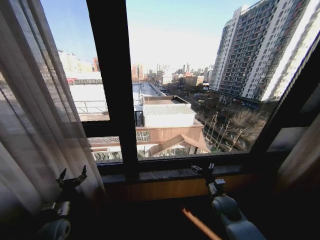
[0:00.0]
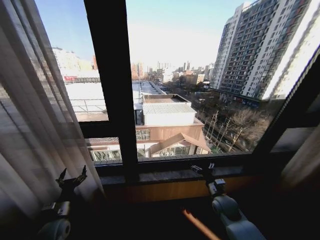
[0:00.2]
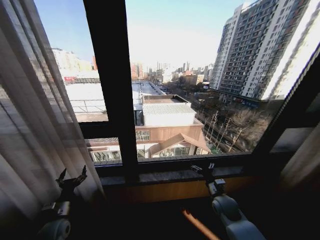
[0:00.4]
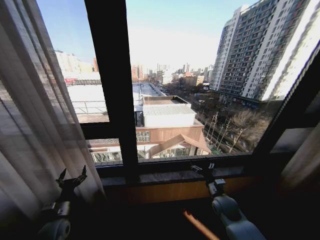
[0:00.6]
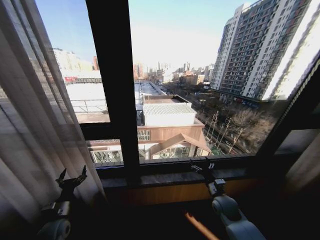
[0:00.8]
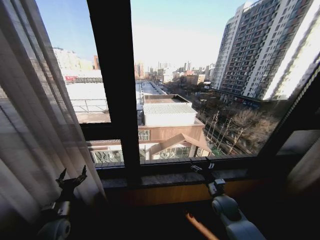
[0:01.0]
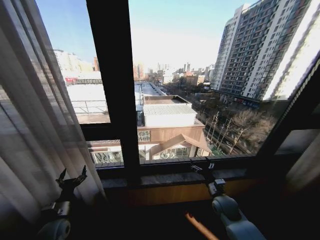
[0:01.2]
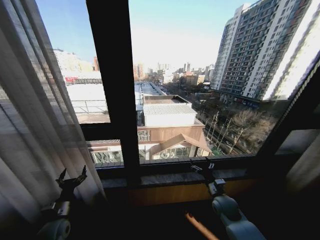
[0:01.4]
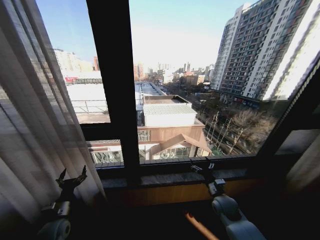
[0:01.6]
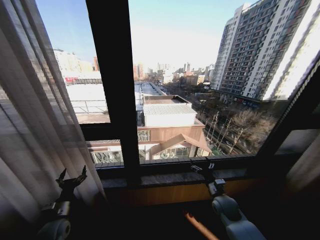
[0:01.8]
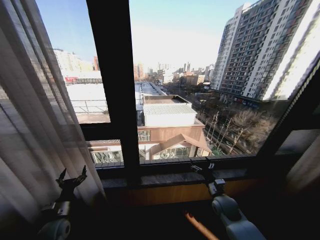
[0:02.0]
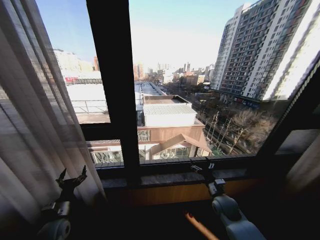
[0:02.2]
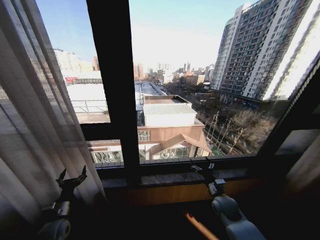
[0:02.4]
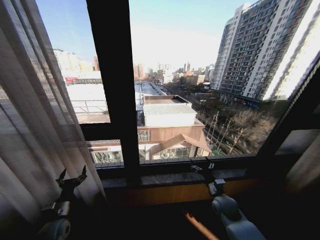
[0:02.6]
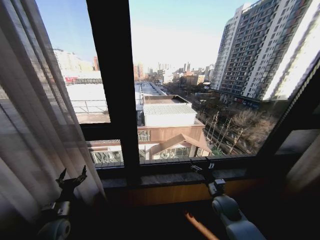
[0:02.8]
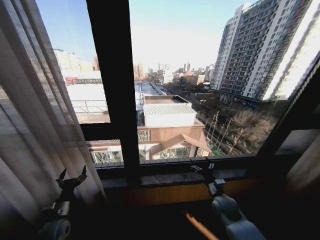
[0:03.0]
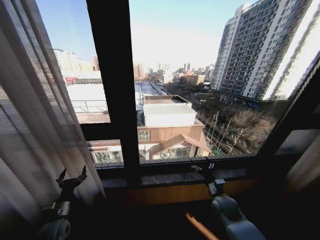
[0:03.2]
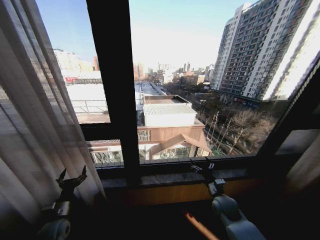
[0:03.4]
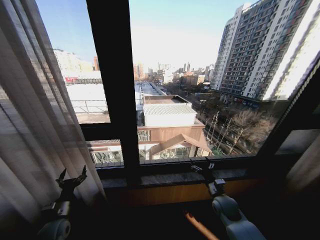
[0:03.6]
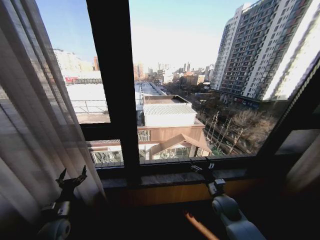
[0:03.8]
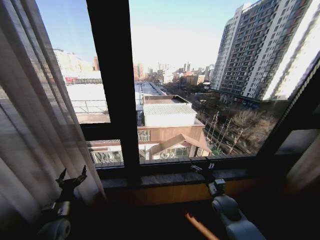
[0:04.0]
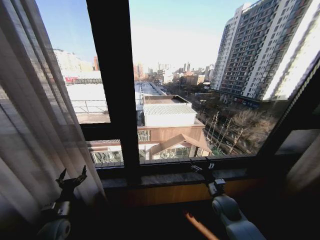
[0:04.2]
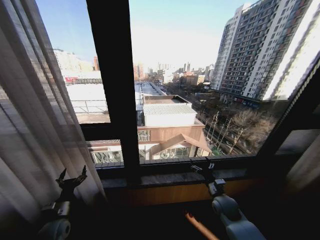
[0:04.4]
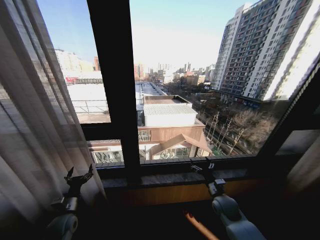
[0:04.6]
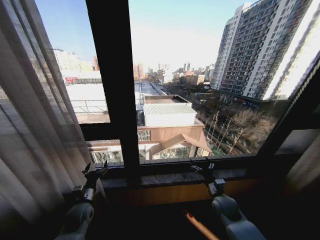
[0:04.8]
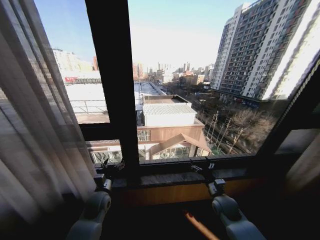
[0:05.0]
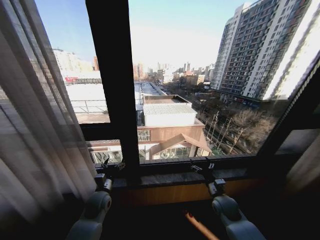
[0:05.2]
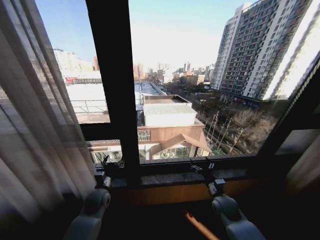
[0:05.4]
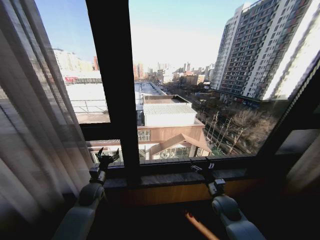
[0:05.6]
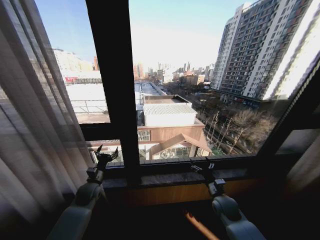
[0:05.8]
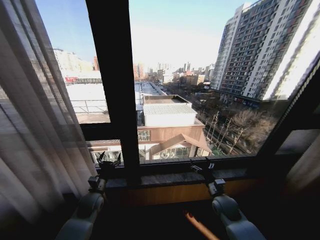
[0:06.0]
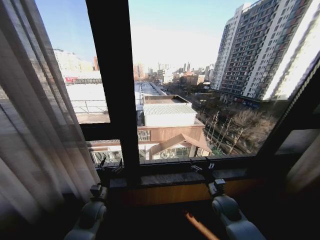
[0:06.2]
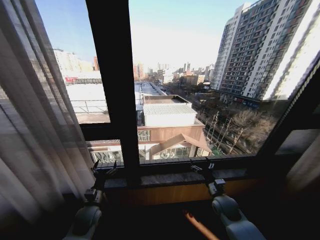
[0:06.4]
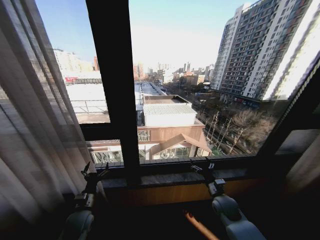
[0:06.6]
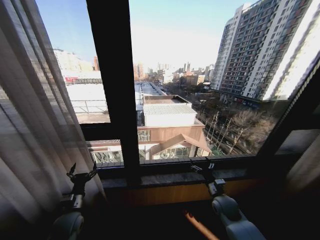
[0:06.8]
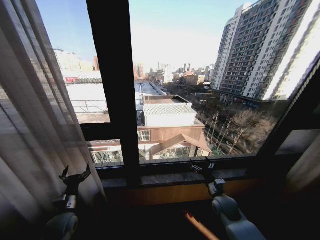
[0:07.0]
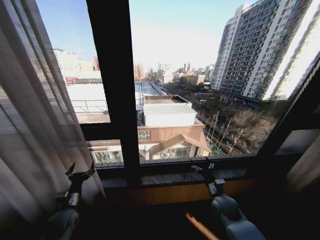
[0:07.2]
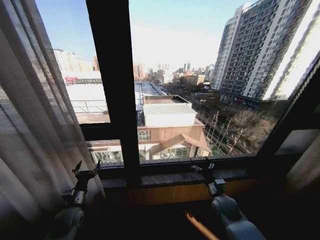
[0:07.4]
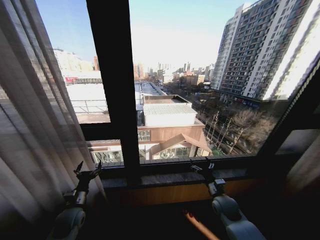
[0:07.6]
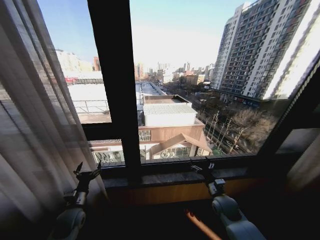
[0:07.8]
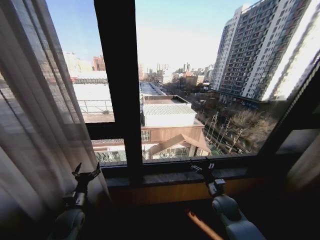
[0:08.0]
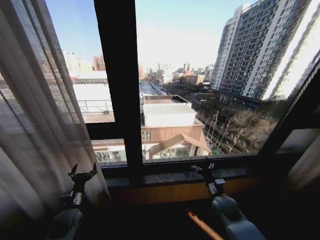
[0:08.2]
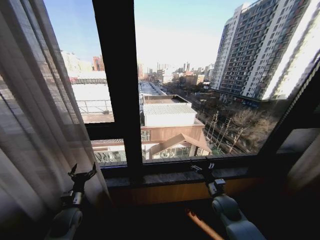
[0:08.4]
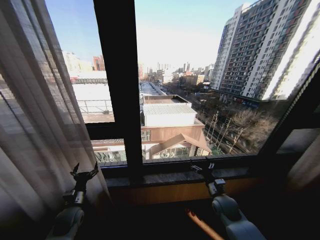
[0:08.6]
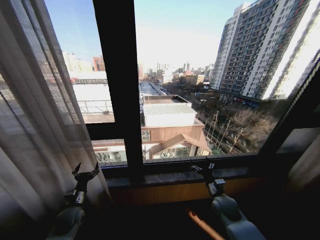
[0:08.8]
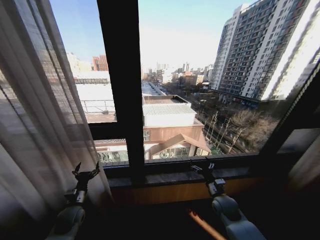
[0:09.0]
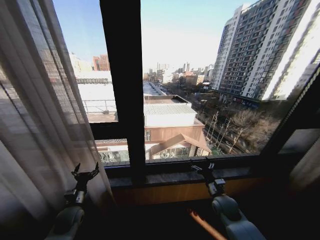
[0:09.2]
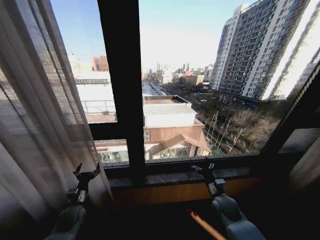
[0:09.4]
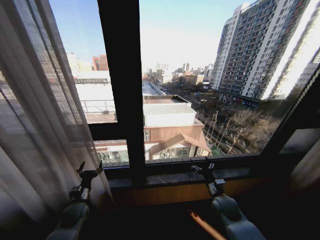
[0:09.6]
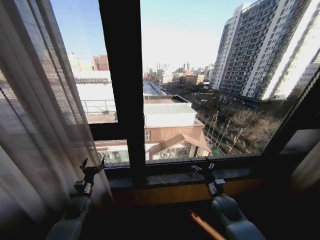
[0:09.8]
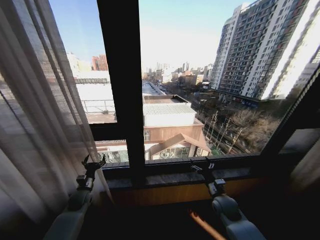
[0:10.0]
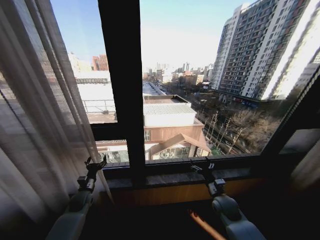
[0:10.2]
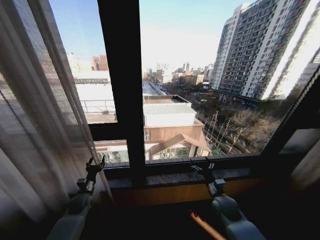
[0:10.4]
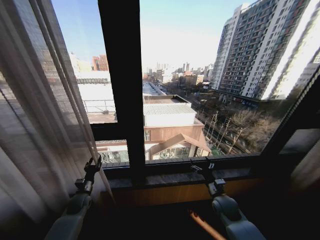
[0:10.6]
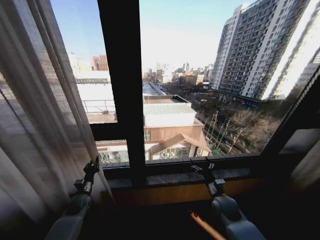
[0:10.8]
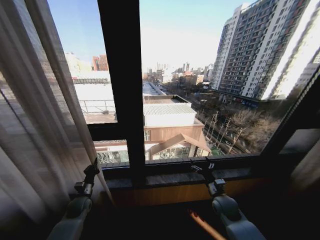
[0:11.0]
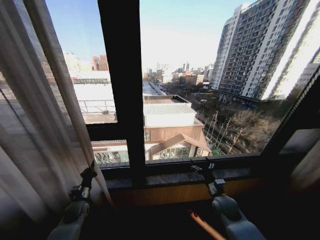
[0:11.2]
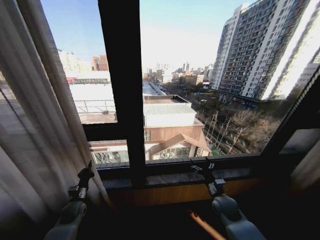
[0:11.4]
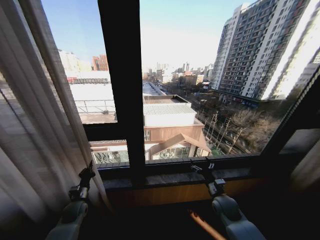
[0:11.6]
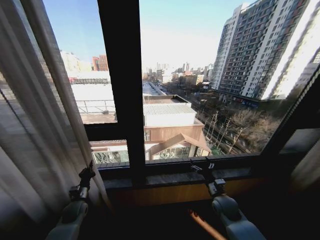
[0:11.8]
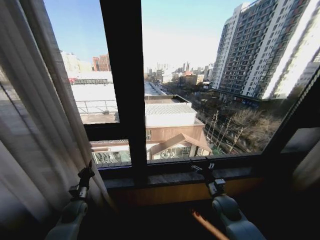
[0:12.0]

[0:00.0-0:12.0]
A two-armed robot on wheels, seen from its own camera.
Task of the whole recording: Open the curtains by pulling them apart, changing their state from closed to fully open.
0:01.6 to 0:04.4: The two grippers keep their place.
0:04.4 to 0:06.0: The left gripper is displaced to the right and forward by about 15 cm.
0:06.0 to 0:07.6: The left gripper is displaced backward and to the left by roughly 10 cm.
0:07.6 to 0:09.0: The grippers stay close to where they were, moving slightly.
0:09.0 to 0:10.4: The left gripper travels forward by about 5 cm.
0:10.4 to 0:12.0: The left gripper closes its fingers.

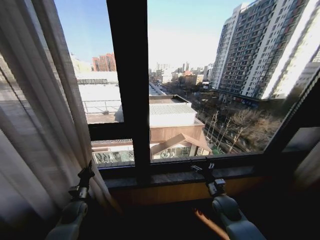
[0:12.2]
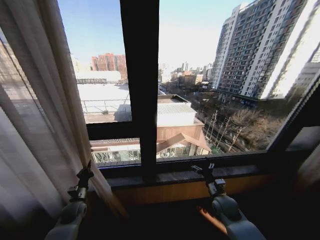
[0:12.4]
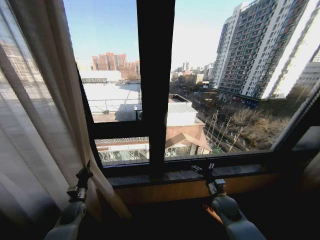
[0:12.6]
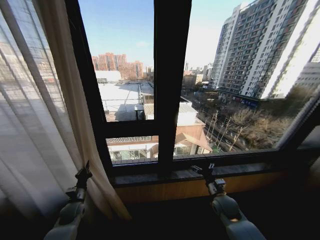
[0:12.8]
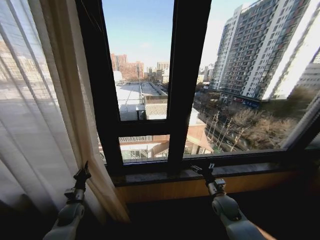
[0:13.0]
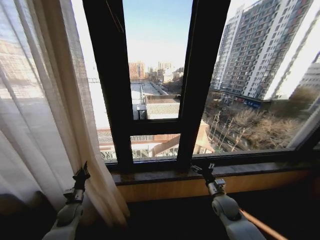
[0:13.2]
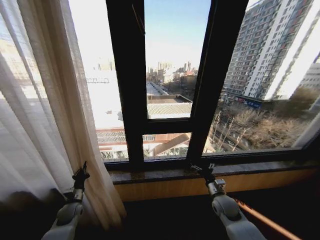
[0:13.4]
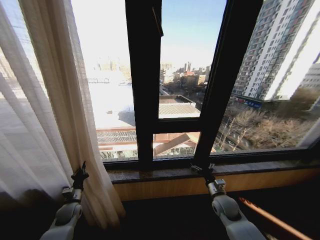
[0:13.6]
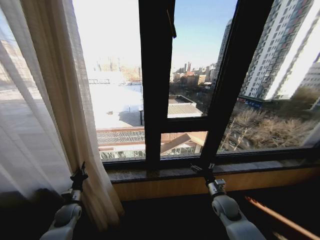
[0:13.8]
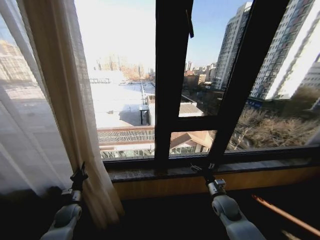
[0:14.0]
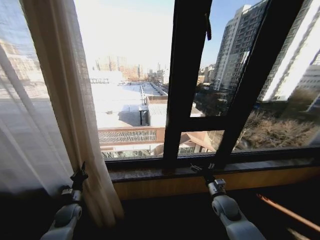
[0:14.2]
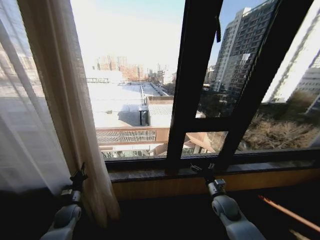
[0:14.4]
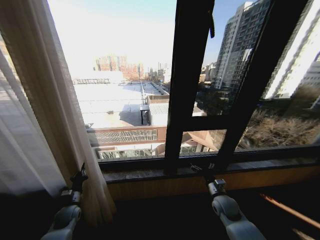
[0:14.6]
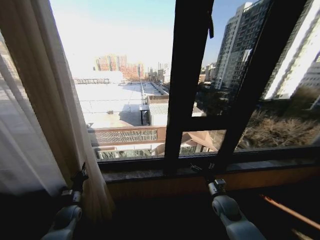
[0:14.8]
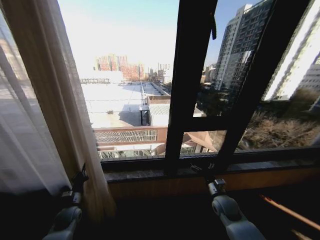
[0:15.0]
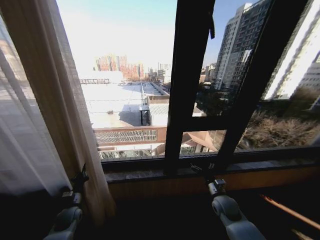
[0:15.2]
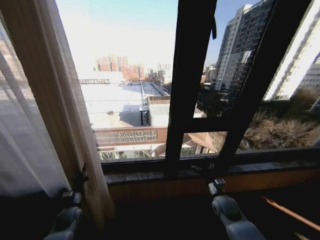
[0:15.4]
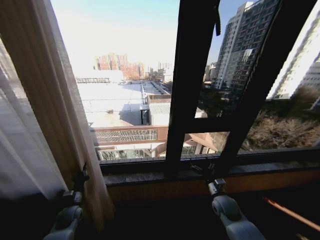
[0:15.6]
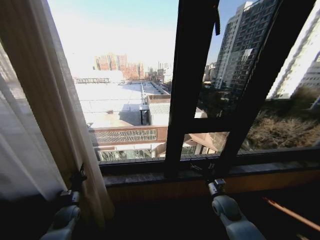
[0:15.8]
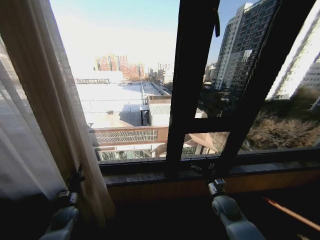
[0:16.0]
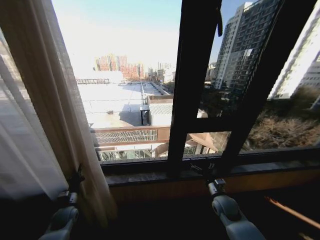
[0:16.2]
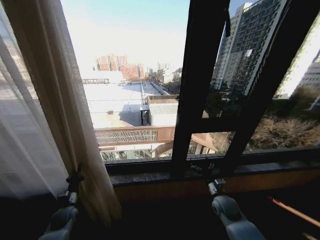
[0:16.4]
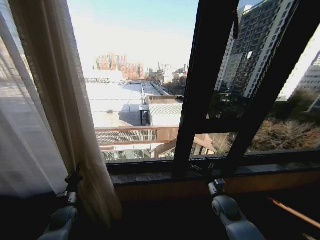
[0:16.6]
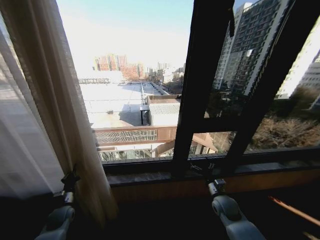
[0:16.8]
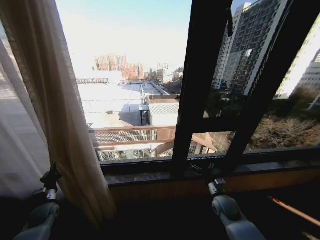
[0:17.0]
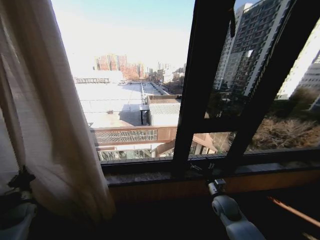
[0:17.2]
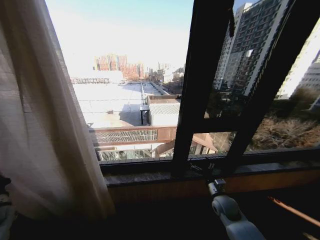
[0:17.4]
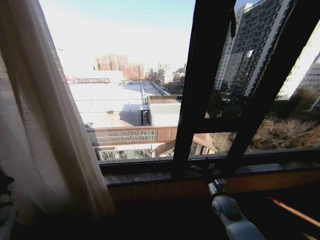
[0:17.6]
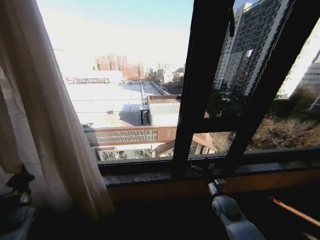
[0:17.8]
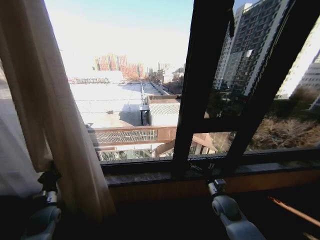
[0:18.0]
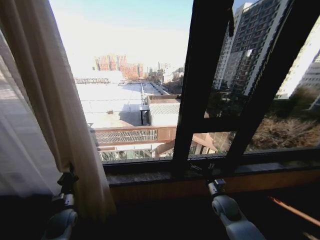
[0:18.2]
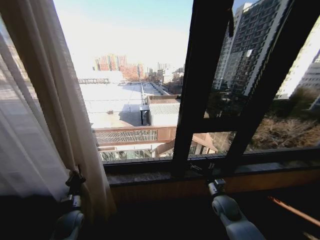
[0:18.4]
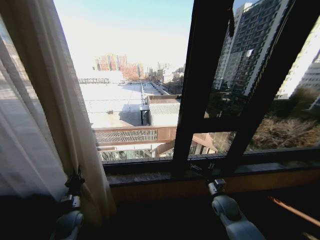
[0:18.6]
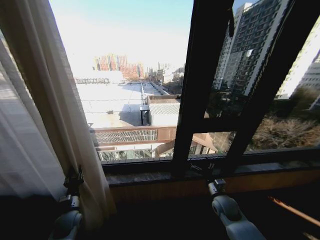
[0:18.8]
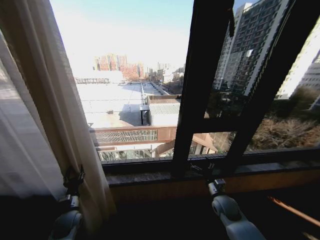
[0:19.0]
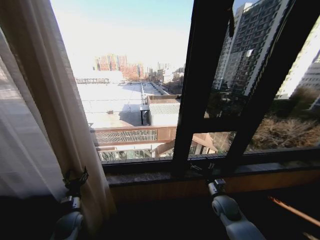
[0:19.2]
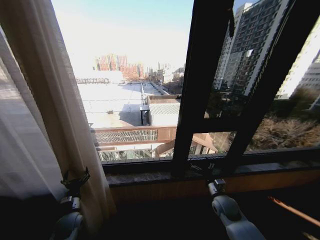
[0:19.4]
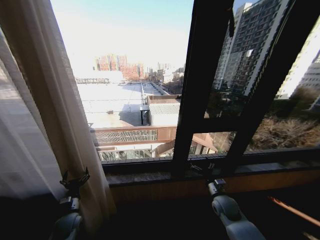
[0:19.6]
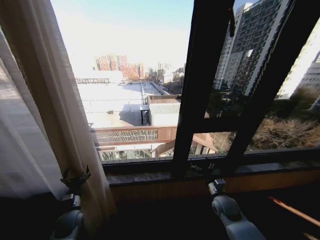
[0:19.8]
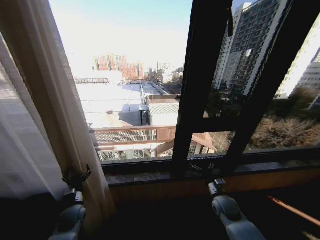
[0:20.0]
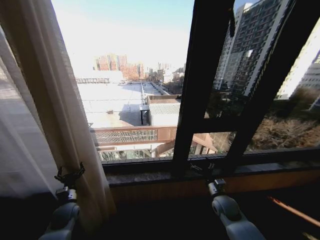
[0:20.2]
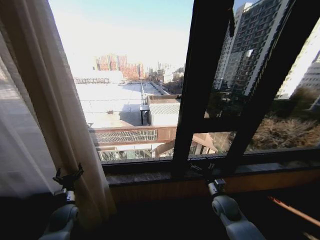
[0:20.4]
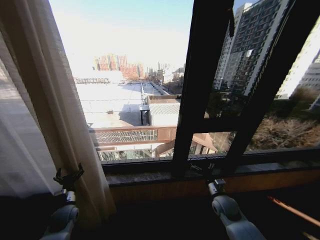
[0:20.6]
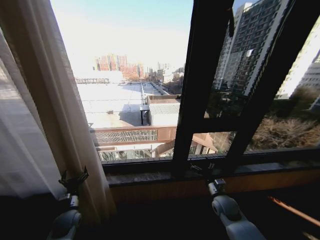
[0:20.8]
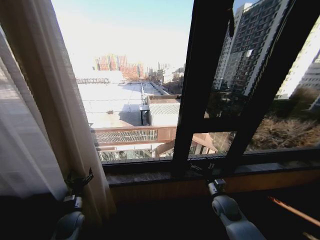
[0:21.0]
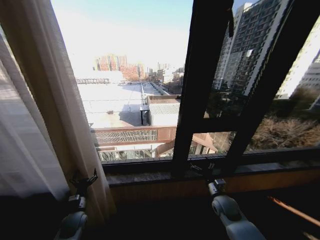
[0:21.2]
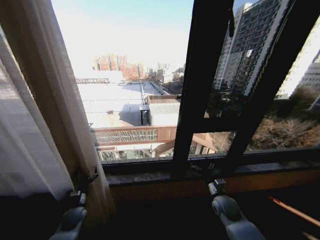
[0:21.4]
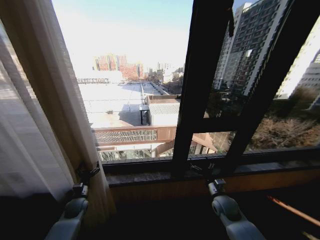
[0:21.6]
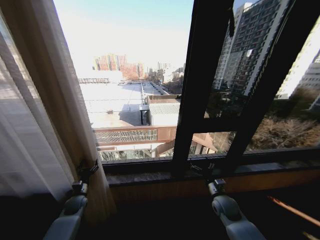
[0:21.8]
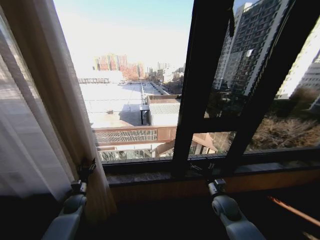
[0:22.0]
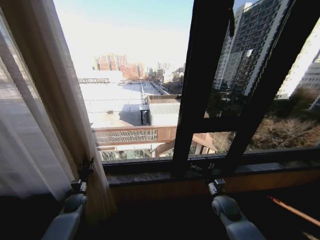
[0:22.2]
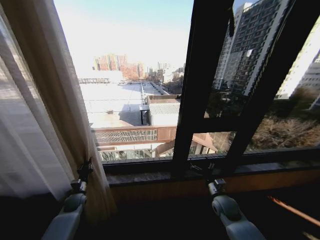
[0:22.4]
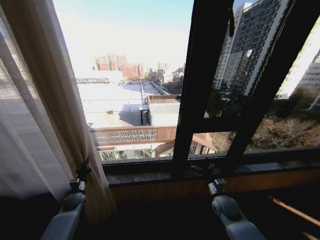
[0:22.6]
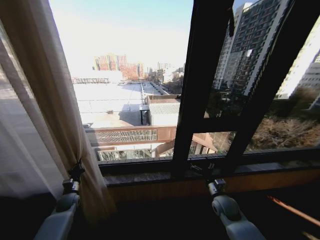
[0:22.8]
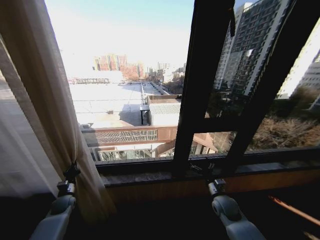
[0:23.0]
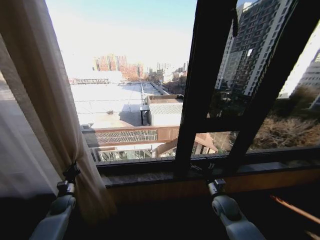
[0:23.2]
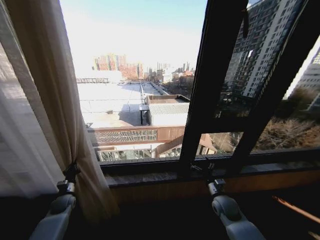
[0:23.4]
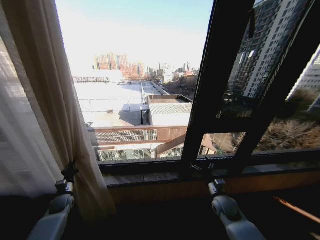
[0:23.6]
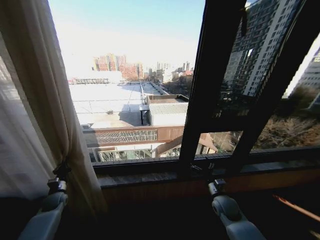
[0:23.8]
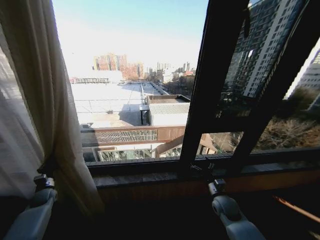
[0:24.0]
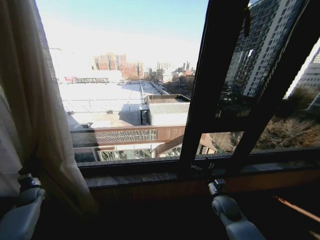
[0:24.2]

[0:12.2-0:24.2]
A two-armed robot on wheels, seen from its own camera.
Task of the whole recording: Open the curtains by pulling them apart, changing their state from closed to fully open.
0:16.6 to 0:18.2: The left gripper reaches about 20 cm to the left, then returns.
0:18.2 to 0:19.8: The left gripper opens.
0:19.8 to 0:21.2: The grippers make only small movements.
0:21.2 to 0:22.6: The left gripper shifts some 10 cm forward and to the left, and closes up.
0:22.6 to 0:24.2: The left gripper goes roughly 20 cm to the left.
